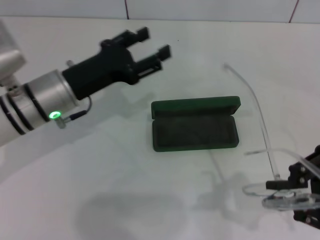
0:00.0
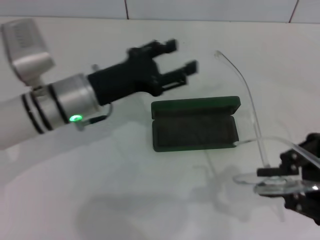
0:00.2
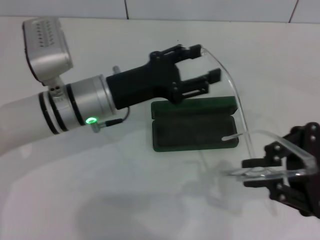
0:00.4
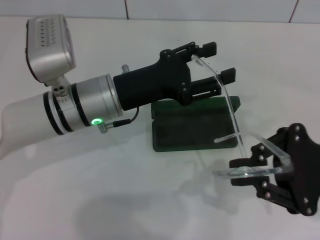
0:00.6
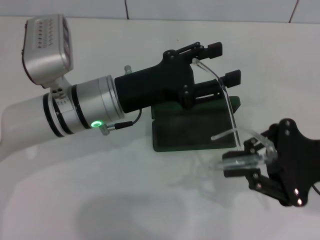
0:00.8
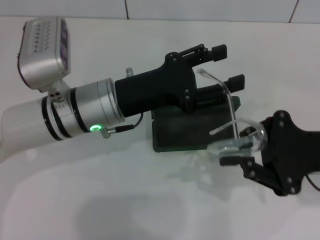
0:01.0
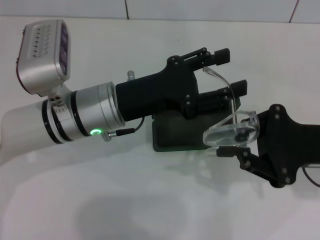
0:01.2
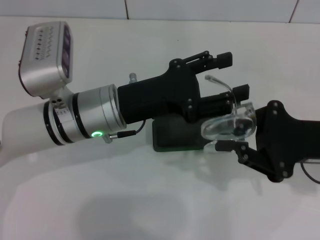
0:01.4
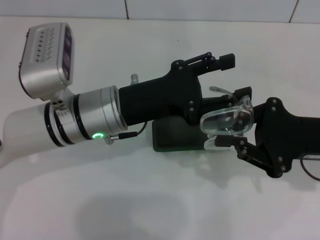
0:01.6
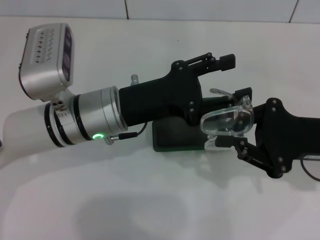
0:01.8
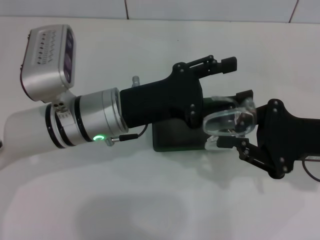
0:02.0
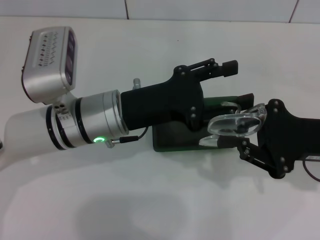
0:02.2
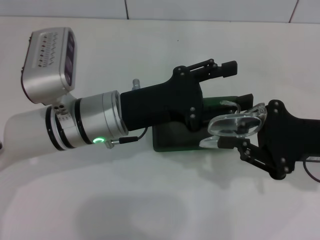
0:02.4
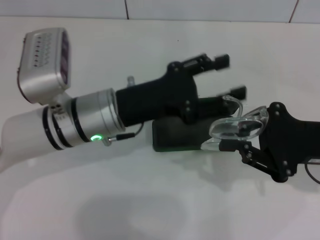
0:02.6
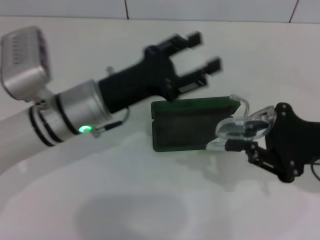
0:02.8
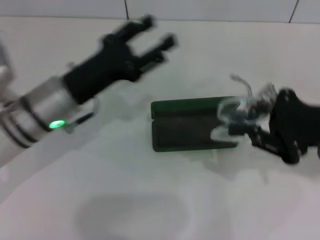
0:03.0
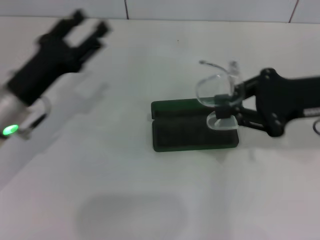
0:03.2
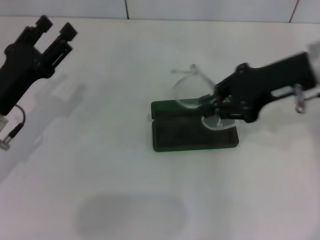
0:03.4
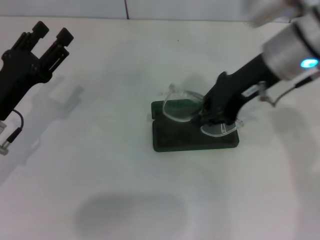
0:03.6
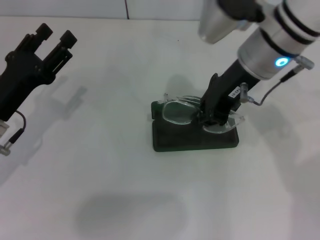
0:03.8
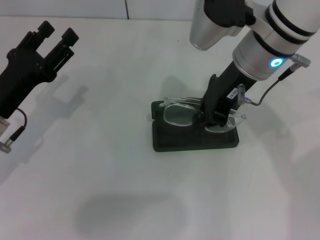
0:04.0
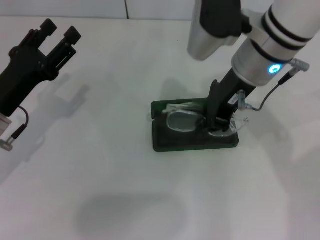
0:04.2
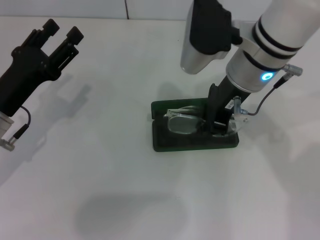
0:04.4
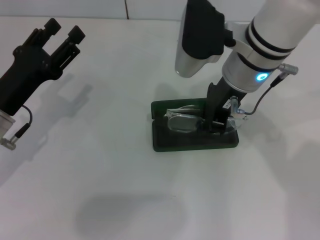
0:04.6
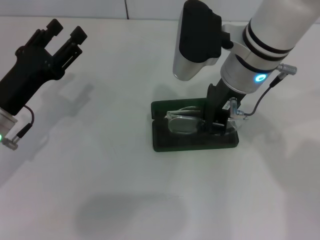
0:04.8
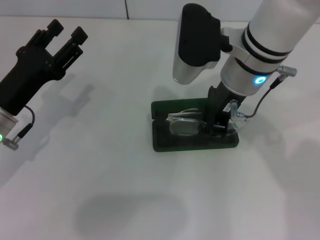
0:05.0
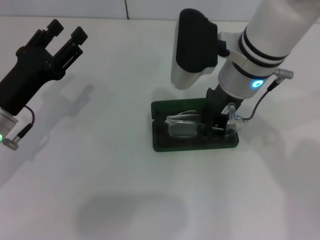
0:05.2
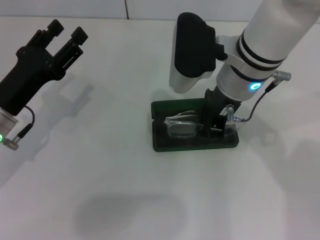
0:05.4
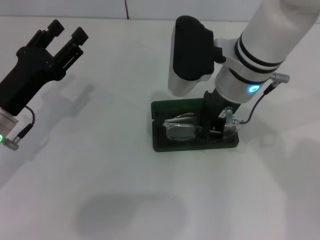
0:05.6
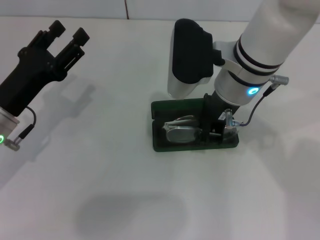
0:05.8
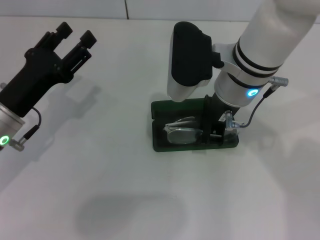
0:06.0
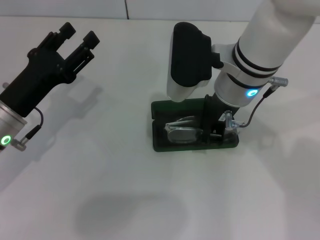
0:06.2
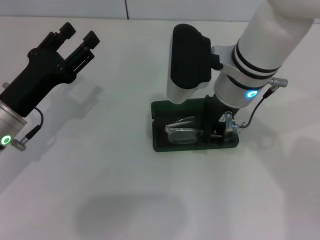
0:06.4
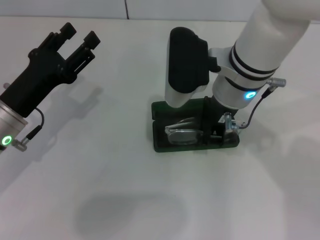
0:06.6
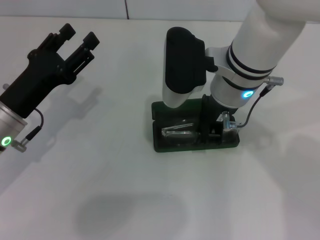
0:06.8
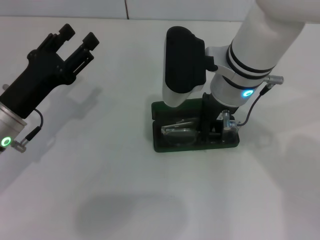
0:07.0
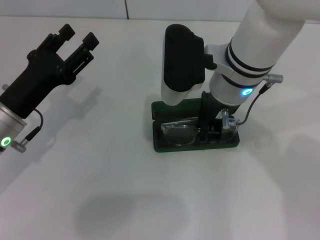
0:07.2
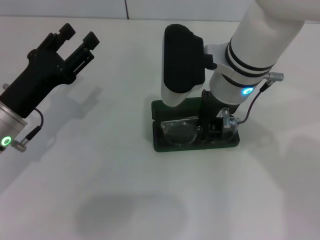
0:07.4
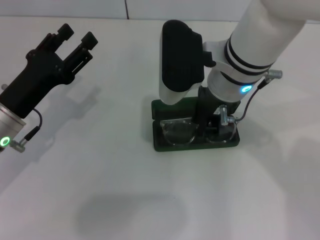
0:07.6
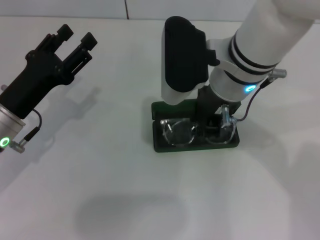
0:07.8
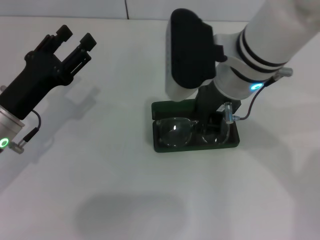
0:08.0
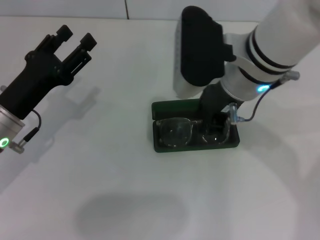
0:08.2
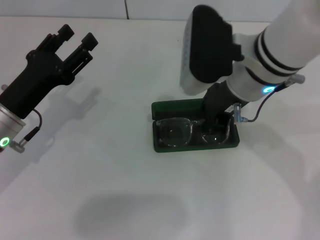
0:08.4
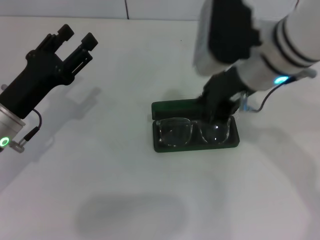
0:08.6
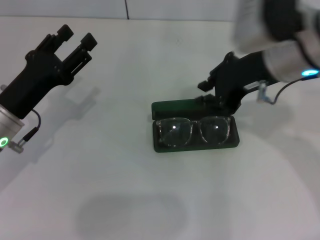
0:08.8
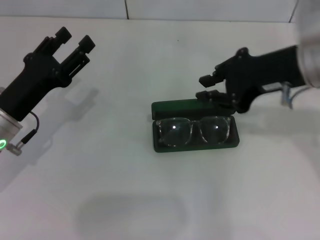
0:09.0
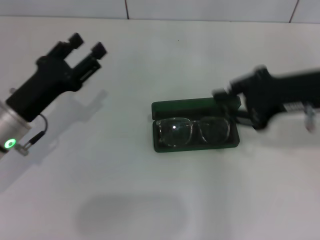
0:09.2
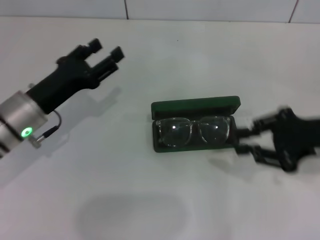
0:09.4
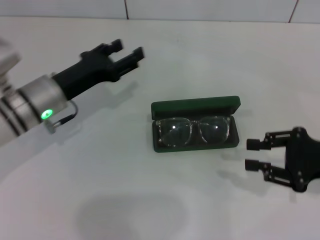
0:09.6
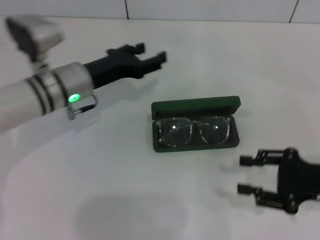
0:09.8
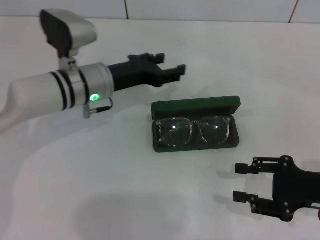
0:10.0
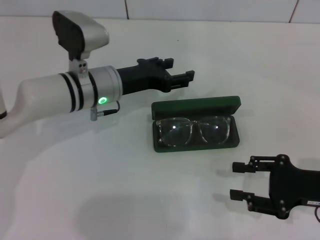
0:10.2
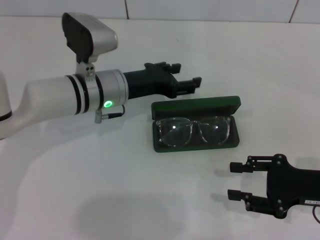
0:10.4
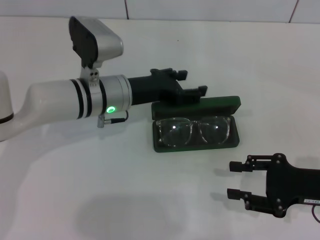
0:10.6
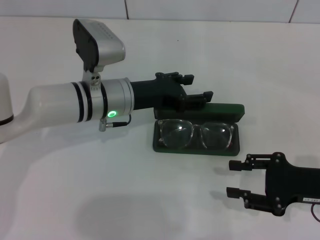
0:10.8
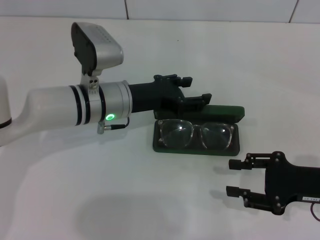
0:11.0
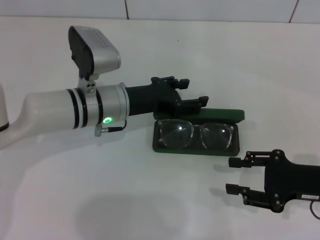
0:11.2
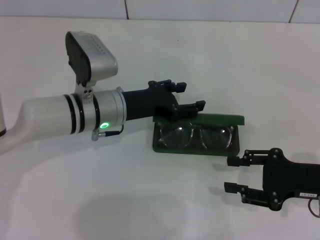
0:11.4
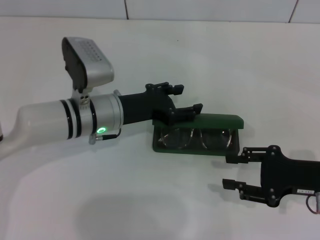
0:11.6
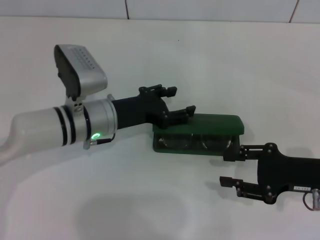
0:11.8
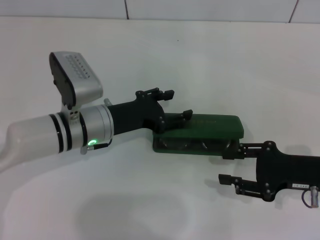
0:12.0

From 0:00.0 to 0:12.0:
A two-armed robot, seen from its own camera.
Step, from 0:00.0 to 0:02.4: Fold the frame with your left hand.
Step, from 0:02.6 to 0:07.4: Put the glasses into the case with your right hand.
From 0:00.0 to 0:01.6: The left gripper travels to the right by roughly 5 cm, while the right gripper moves forward, about 5 cm.
From 0:01.6 to 0:03.0: The left gripper heads to the left, covering roughly 5 cm.
From 0:03.0 to 0:04.4: The right gripper travels to the left and forward by some 20 cm; the left gripper travels to the left by approximately 10 cm.
From 0:04.4 to 0:07.6: There are only small adjustments of the grippers.
From 0:07.6 to 0:09.0: The right gripper heads to the right, covering about 10 cm.
From 0:09.0 to 0:10.4: The left gripper heads to the right and forward, covering roughly 15 cm. The right gripper heads downward, to the right and backward, covering about 20 cm.
From 0:10.4 to 0:12.0: The left gripper ends up roughly 5 cm from where it was.

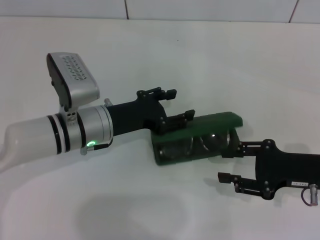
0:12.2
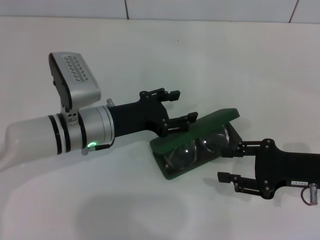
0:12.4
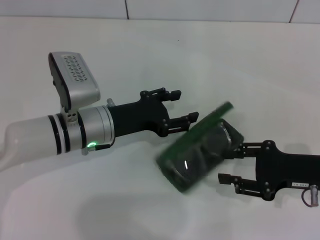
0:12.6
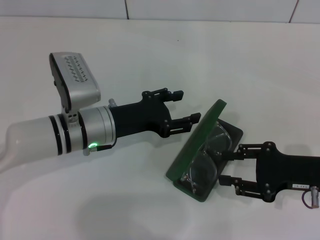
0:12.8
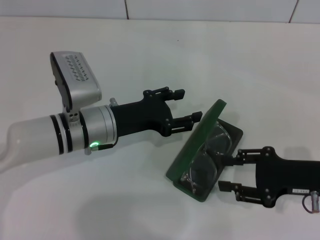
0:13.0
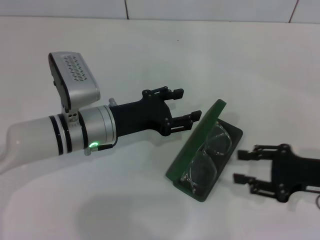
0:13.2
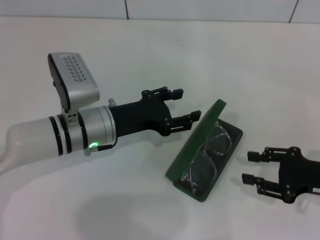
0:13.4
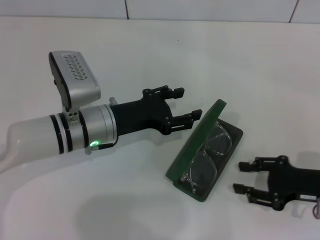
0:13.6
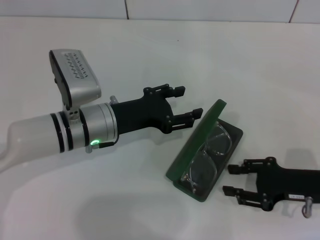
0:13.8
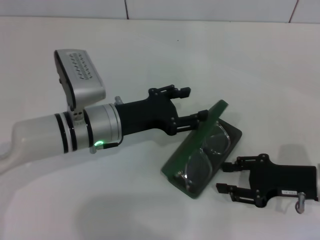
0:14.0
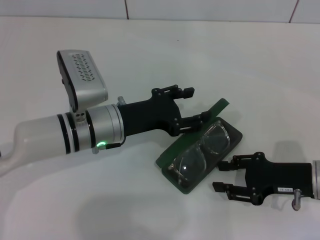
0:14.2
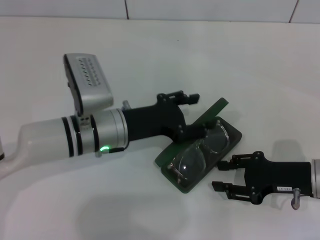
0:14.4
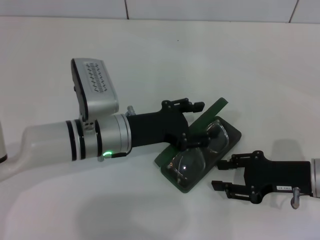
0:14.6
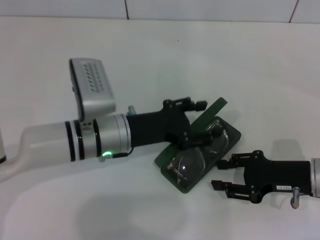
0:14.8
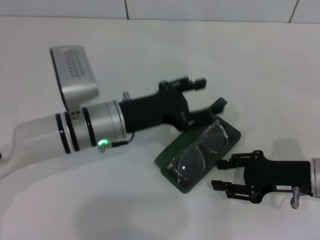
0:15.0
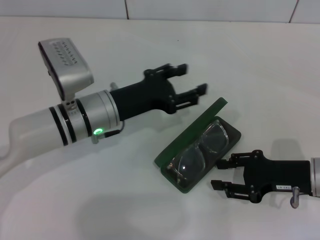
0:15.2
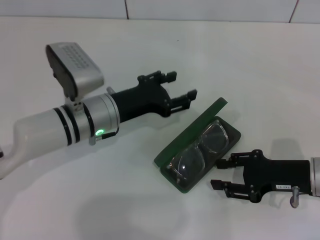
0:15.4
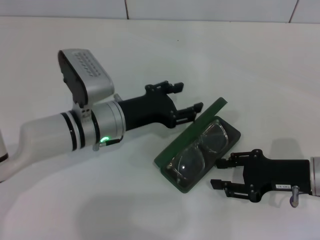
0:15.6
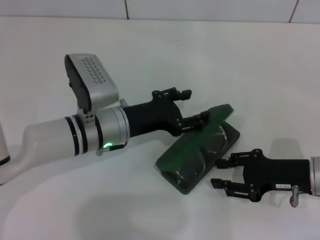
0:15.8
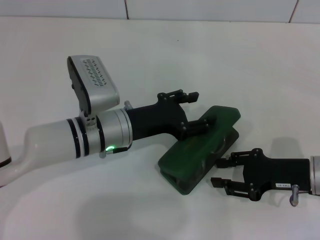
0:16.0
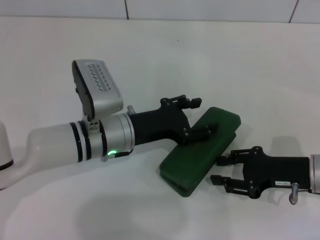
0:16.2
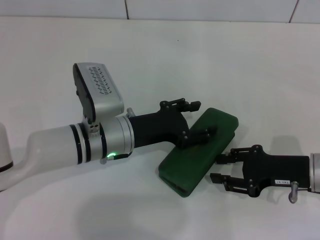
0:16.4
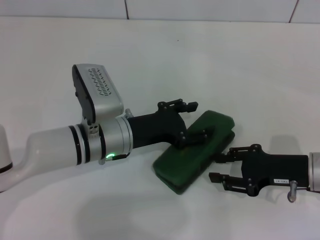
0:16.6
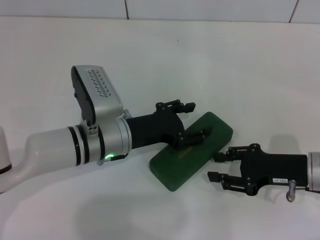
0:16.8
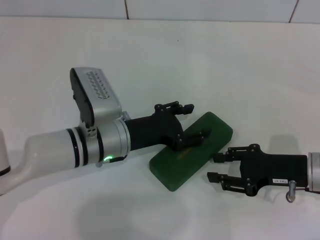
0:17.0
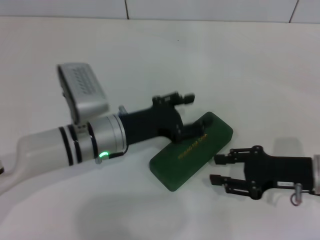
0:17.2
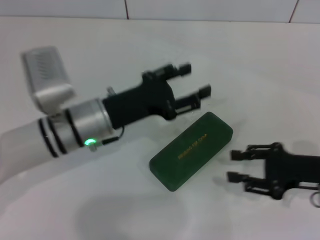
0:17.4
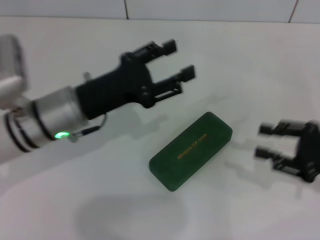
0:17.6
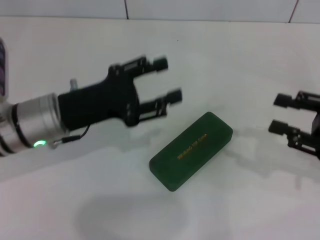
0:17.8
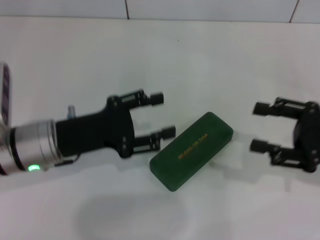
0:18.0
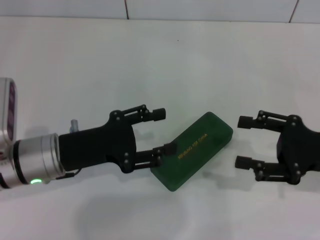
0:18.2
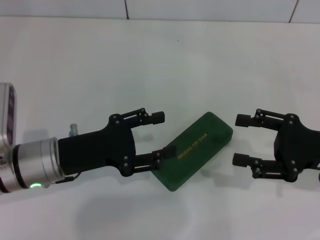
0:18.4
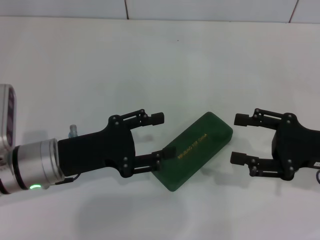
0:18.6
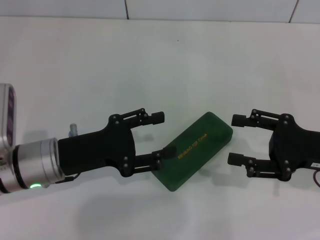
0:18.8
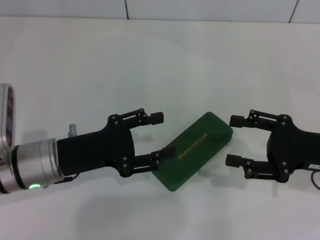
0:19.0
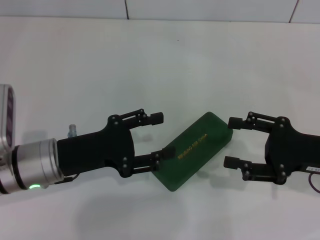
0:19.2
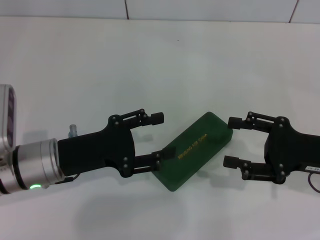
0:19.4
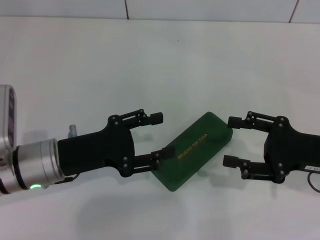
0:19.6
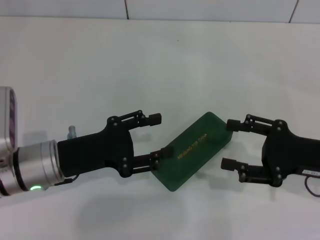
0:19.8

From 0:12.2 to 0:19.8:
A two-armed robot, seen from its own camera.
Step, from 0:12.2 to 0:16.8: Close the glasses case with your left hand.
From 0:12.2 to 0:15.2: The grippers make only small movements.
From 0:16.8 to 0:18.2: The left gripper moves to the left, roughly 10 cm; the right gripper heads upward, covering approximately 5 cm.
From 0:18.2 to 0:19.8: The grippers move only a little.

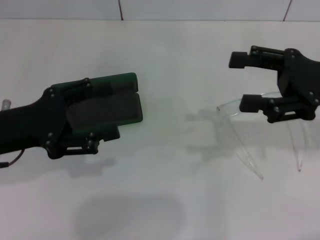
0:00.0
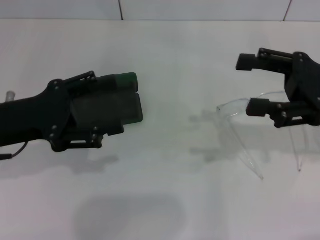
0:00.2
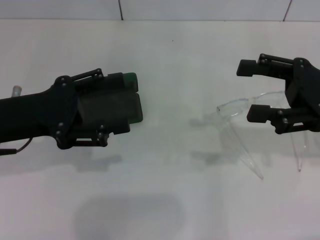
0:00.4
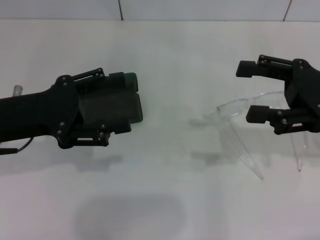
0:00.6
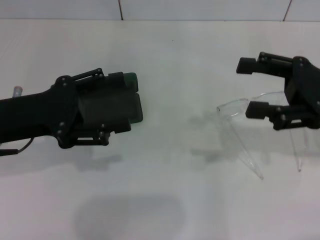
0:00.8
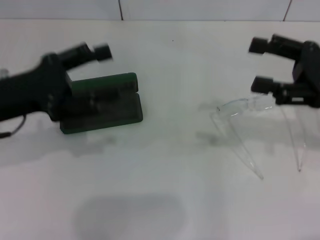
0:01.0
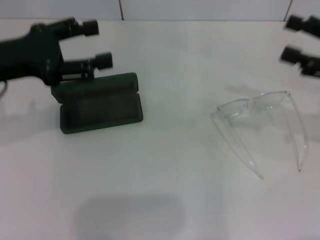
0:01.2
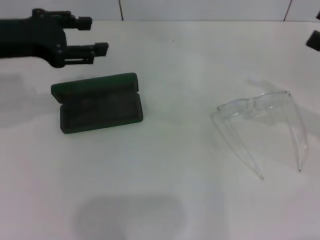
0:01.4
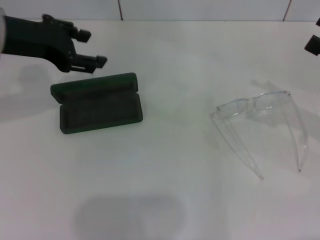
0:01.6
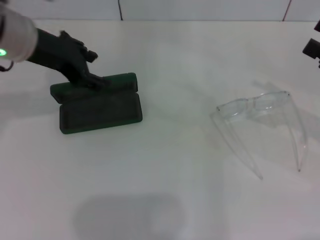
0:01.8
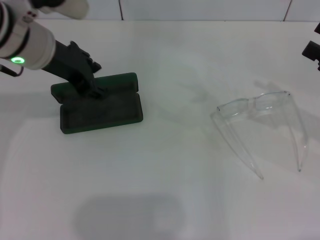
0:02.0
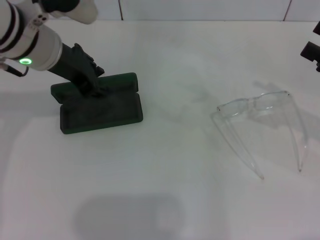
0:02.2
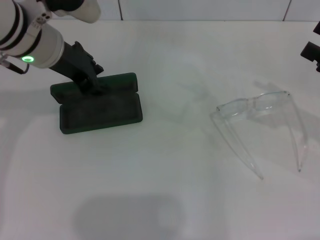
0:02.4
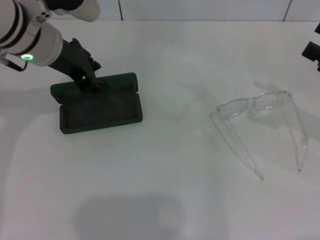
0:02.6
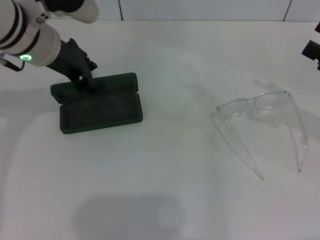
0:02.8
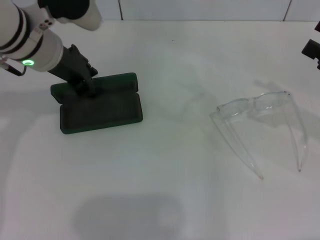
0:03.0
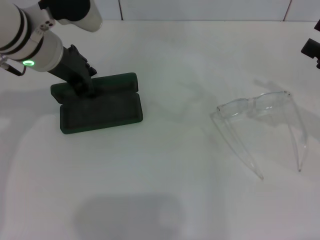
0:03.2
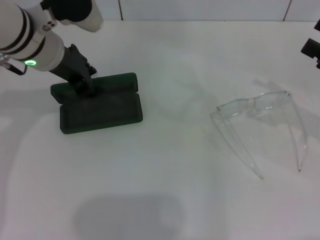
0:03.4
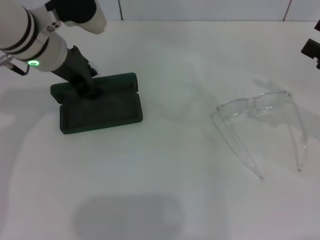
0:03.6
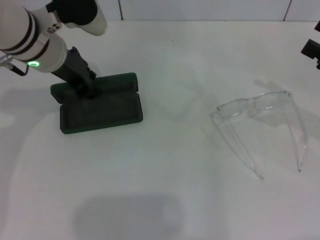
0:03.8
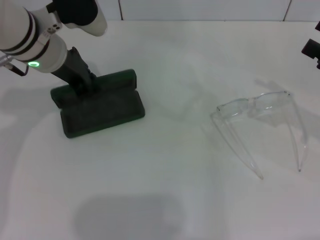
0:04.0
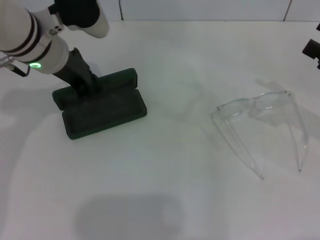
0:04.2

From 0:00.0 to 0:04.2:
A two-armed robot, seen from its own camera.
Step, from 0:00.0 to 0:04.0: Grab the glasses case with your left hand.
From 0:00.0 to 0:01.4: The left gripper heads upward and forward, covering roughly 10 cm. The right gripper travels to the right by approximately 10 cm.
From 0:01.4 to 0:02.8: The left gripper goes some 10 cm to the right, and closes.
From 0:02.8 to 0:04.2: The grippers stay close to where they were, moving slightly.
